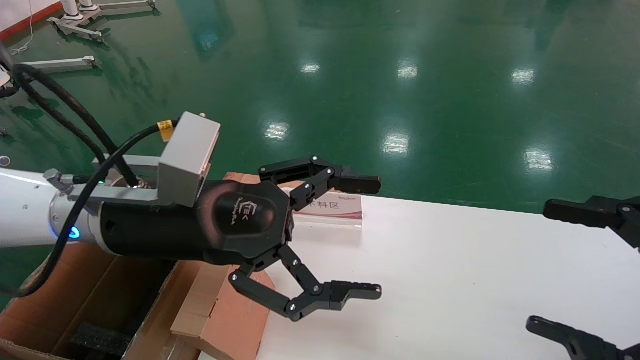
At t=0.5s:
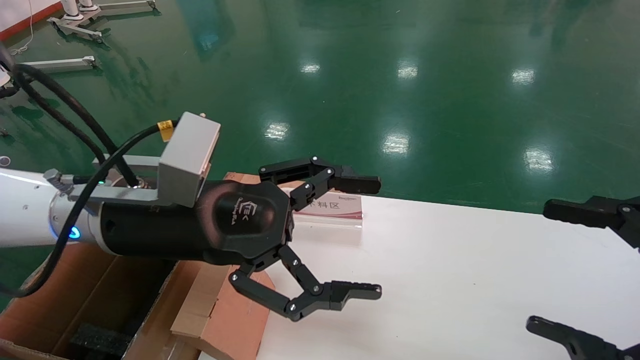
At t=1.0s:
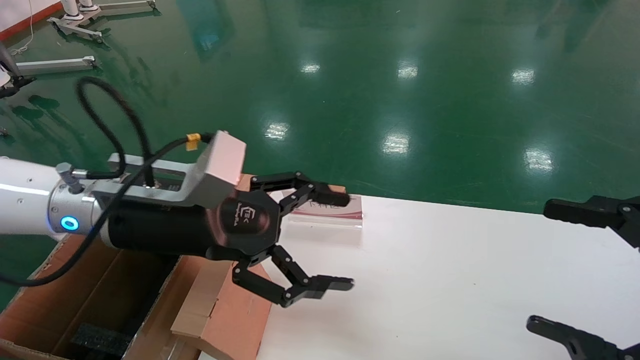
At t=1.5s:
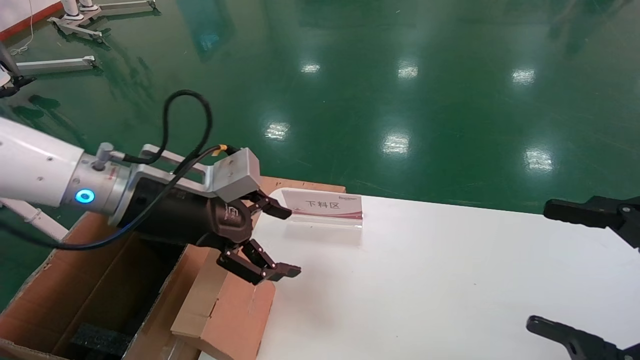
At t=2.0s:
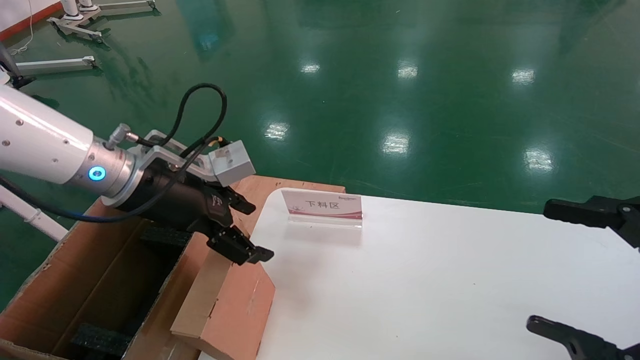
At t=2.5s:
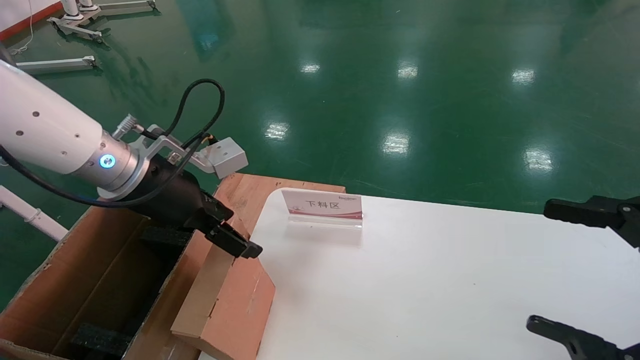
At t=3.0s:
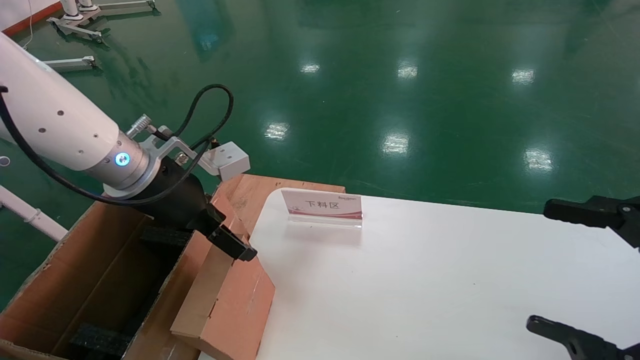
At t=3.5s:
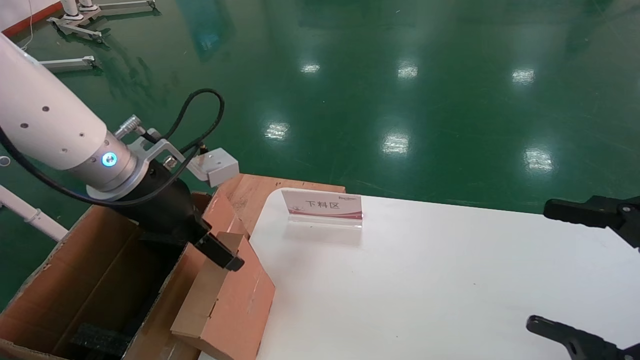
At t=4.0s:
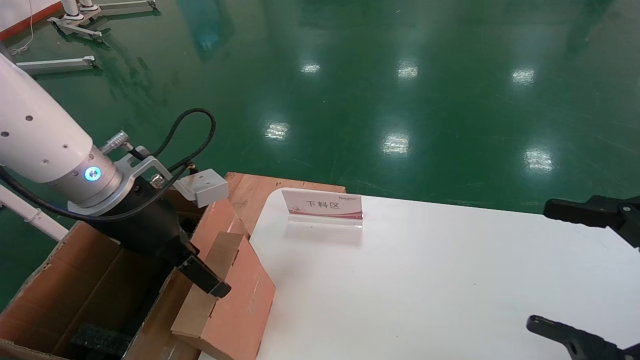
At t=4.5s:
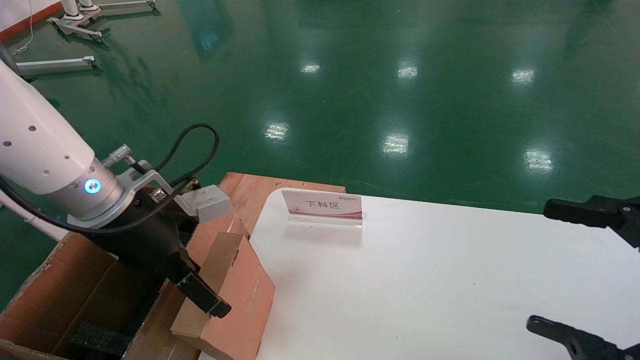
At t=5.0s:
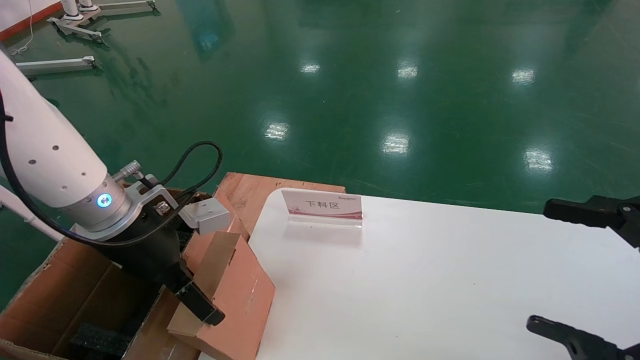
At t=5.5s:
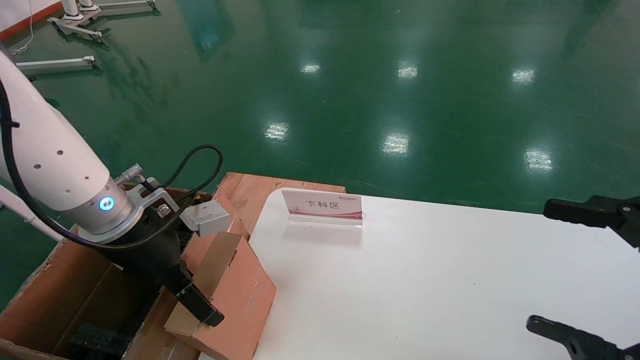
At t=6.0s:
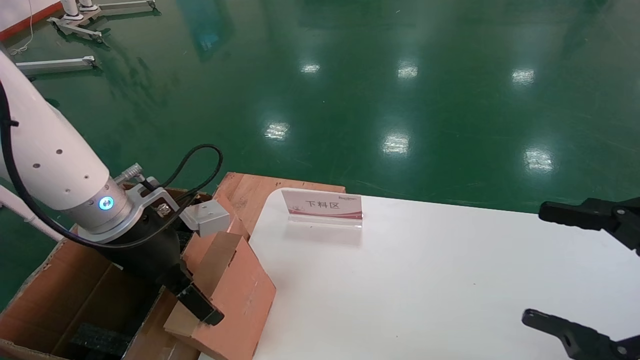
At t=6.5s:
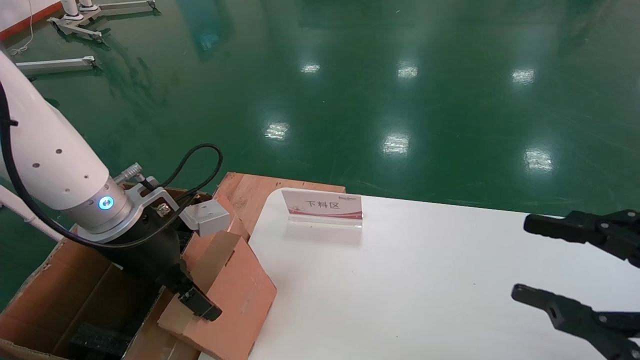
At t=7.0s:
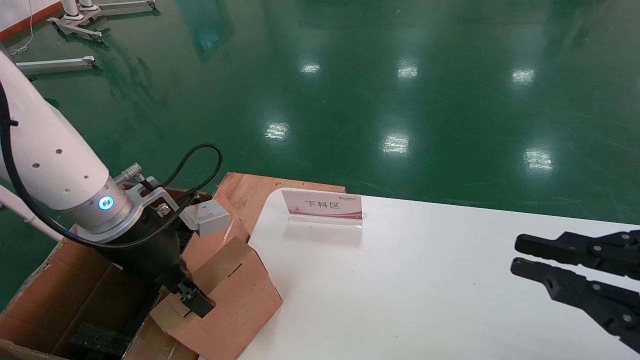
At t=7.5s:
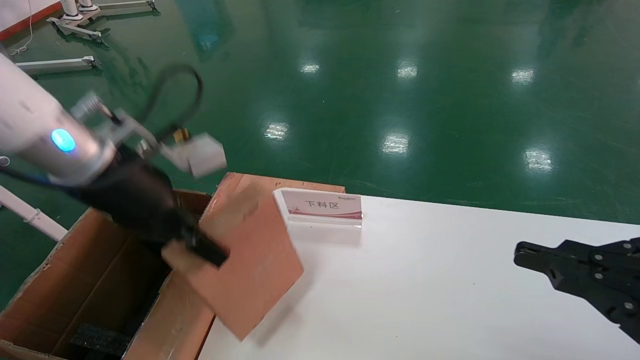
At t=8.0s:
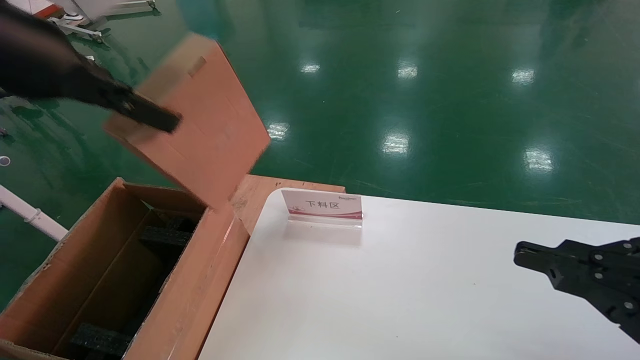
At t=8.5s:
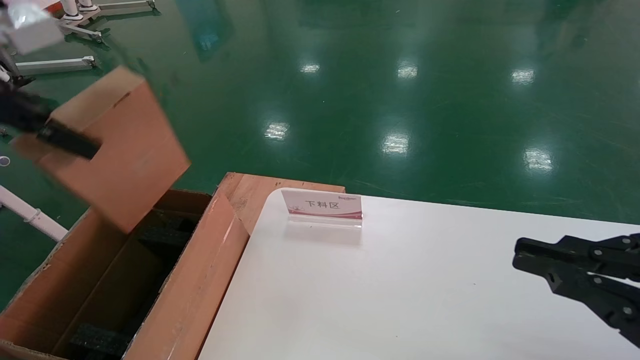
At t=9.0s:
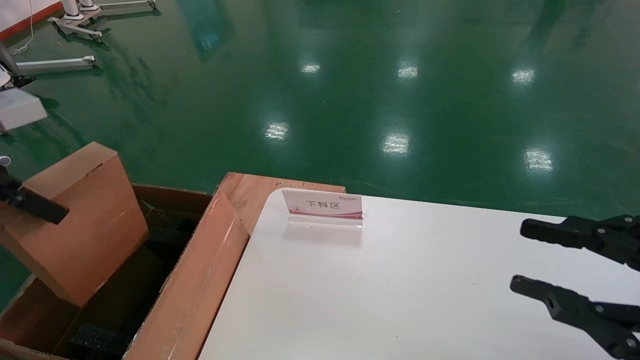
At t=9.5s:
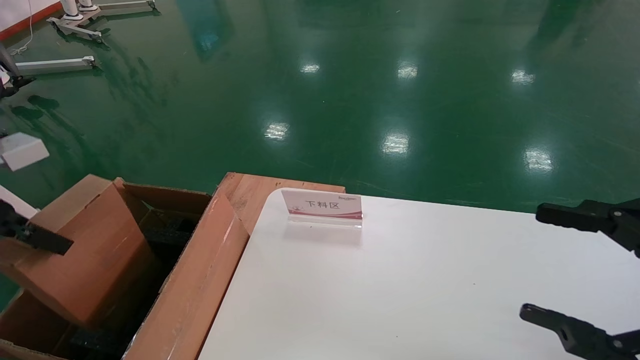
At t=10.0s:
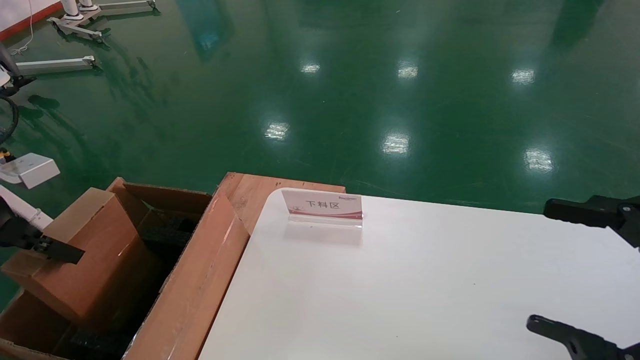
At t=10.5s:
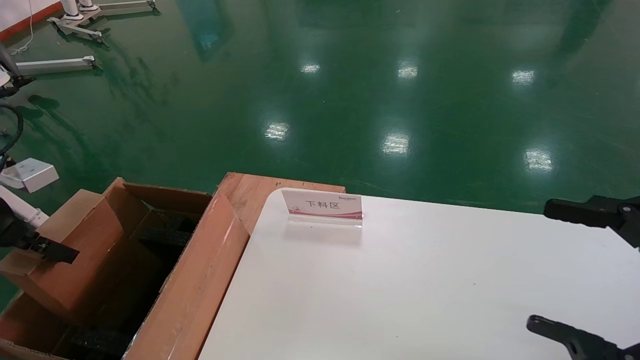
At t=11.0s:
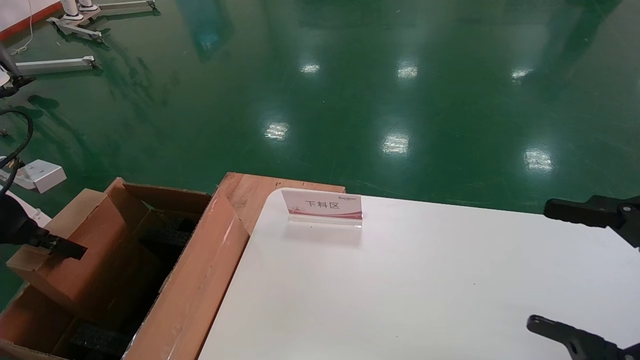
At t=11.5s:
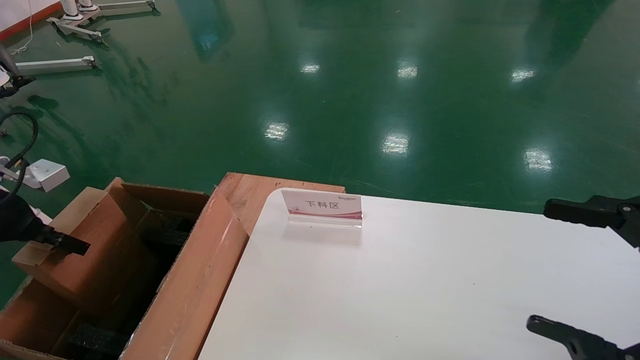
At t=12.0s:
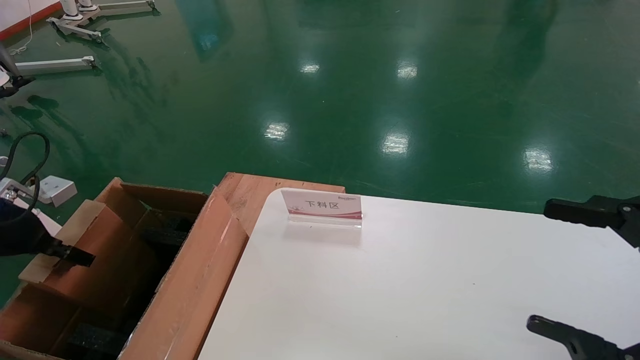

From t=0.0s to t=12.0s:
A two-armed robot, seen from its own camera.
Task of the whole recording: pick up the small cardboard box and load it into the large cardboard box.
Step, from t=1.0s to t=6.5s: Pick up the mouse and power cord box.
From t=0.0s to t=2.0s: The left gripper travels to the left and forward by about 10 cm.
From t=4.0s to t=6.0s: The grippers stay close to where they were, moving slightly.
From t=6.0s to t=8.0s: The left gripper moves upward, some 20 cm, and closes. Meanwhile the right gripper closes up.
From t=8.0s to t=10.0s: The left gripper heads downward and to the left, covering approximately 20 cm. The right gripper opens up.
From t=10.0s to t=12.0s: The left gripper moves downward and forward, some 10 cm.

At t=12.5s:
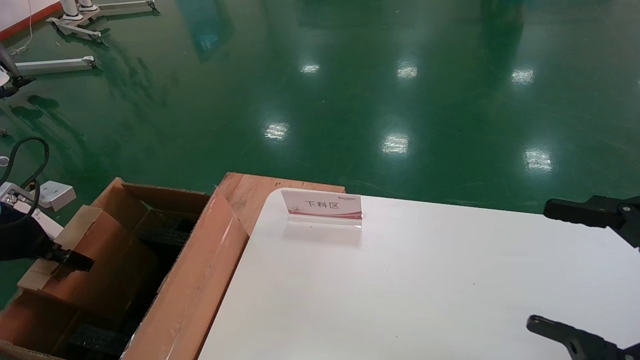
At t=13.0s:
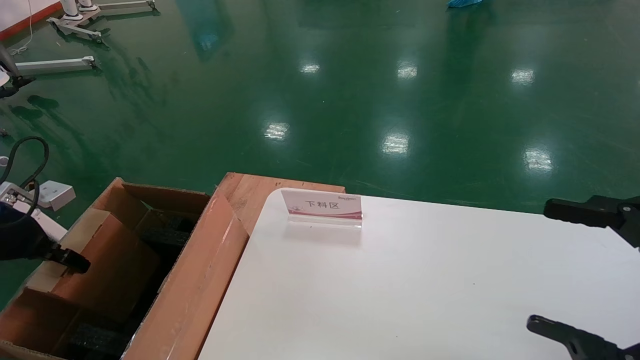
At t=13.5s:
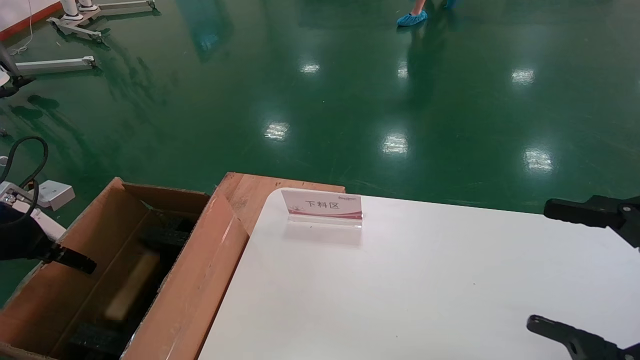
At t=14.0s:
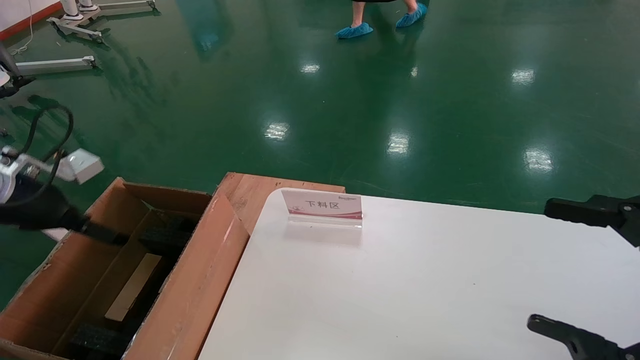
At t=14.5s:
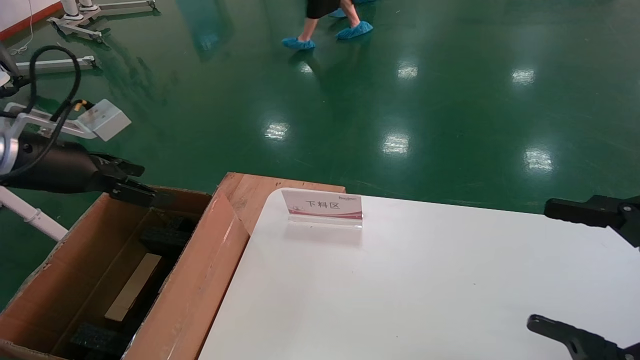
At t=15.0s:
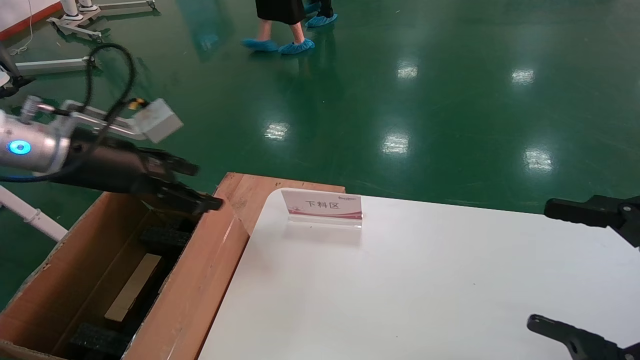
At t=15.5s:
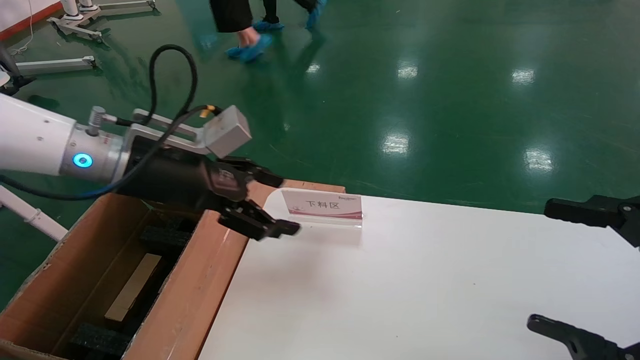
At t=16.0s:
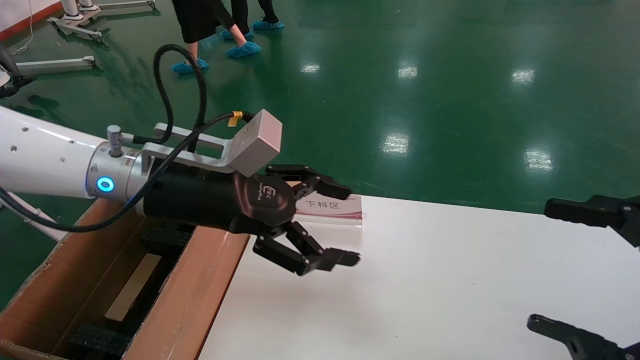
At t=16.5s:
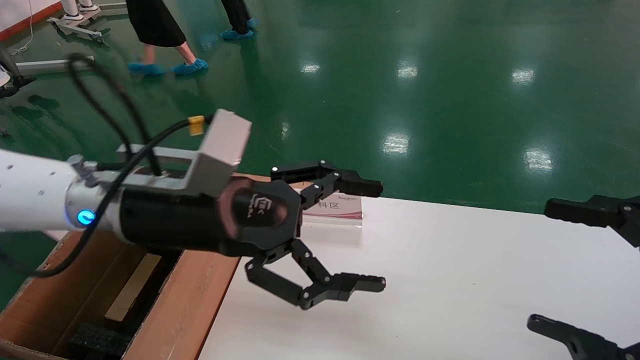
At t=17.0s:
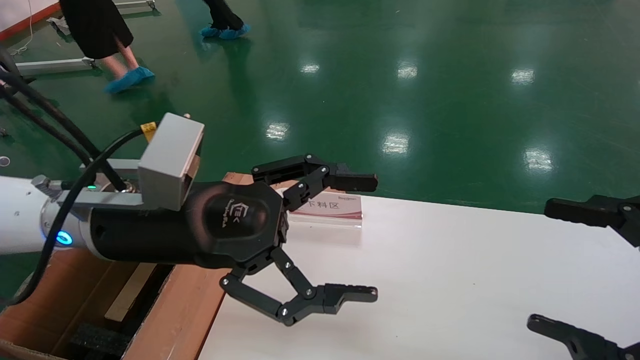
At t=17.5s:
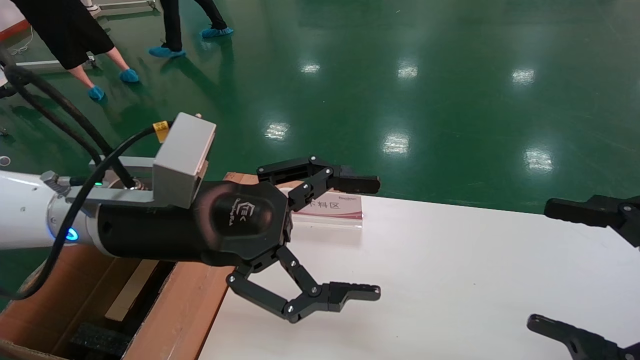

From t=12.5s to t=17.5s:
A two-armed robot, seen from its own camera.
Task of the whole recording: pick up the small cardboard box and load it into the large cardboard box.
From t=12.5s to t=15.0s: The left gripper goes approximately 20 cm to the right and upward, and opens.
From t=15.0s to t=17.5s: The left gripper moves to the right and backward, some 15 cm.

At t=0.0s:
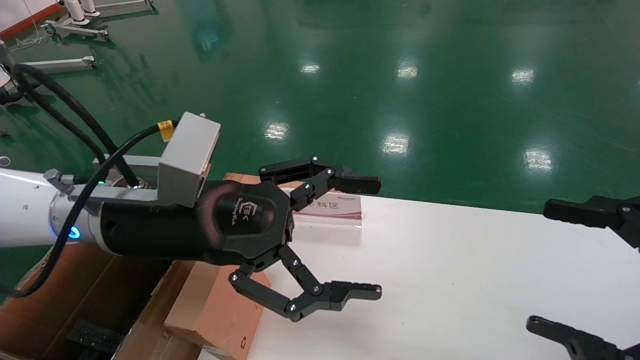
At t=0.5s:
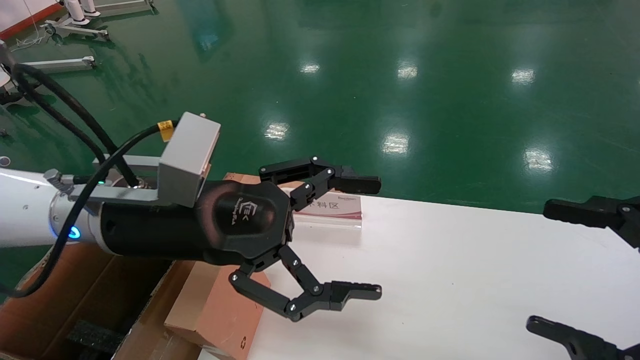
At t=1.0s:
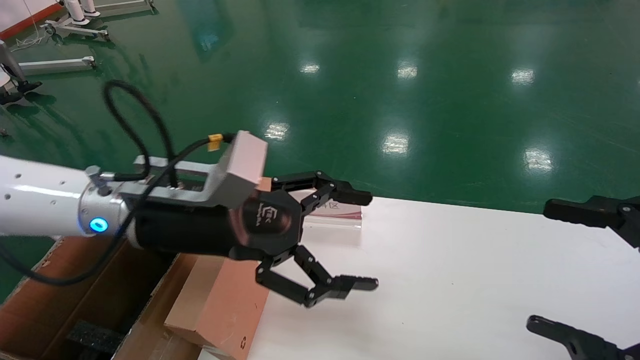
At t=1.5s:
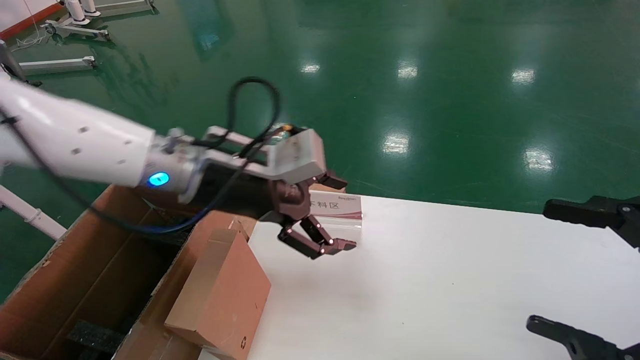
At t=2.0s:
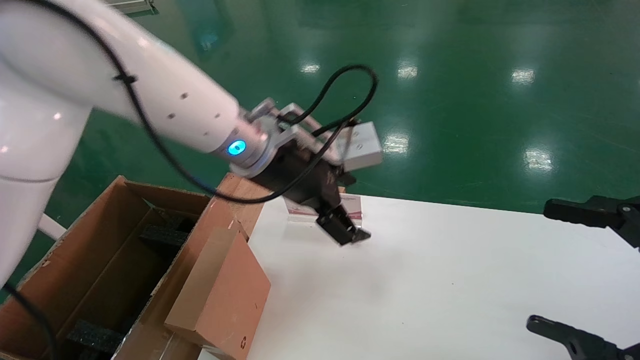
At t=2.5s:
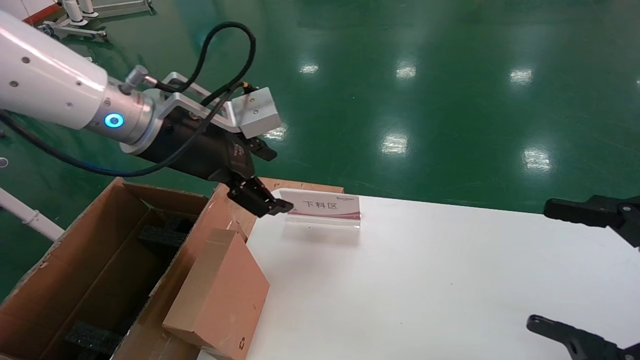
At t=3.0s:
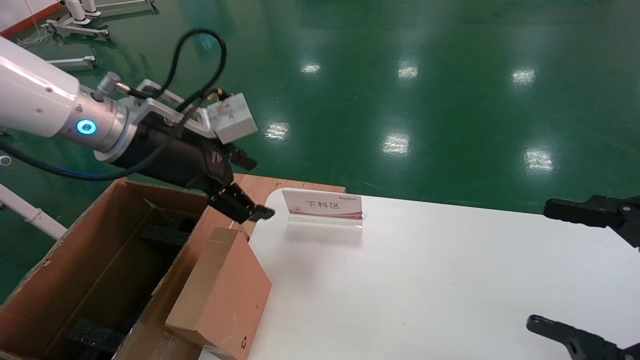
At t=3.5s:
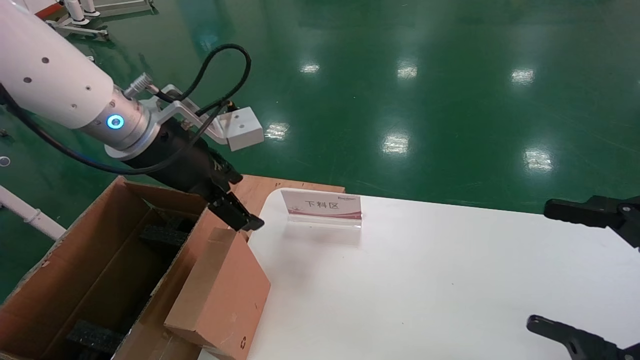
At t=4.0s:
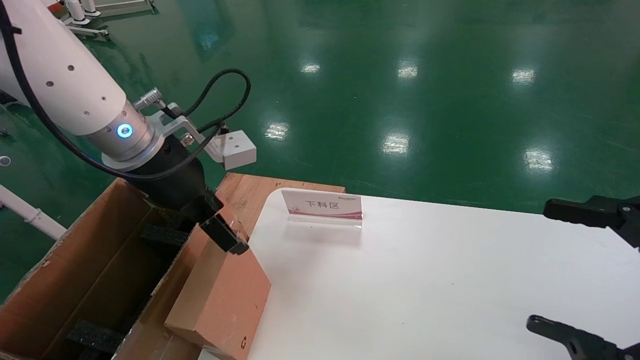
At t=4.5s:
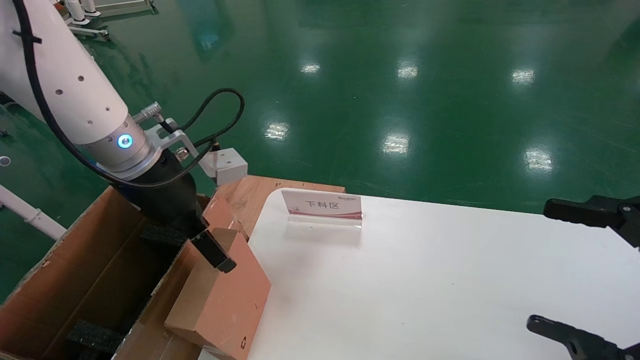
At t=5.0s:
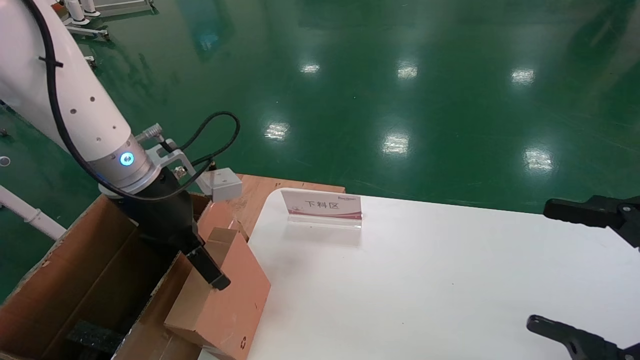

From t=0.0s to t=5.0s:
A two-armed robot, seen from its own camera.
Task of the whole recording: pick up the small cardboard box and load it into the large cardboard box.
From t=0.0s to t=2.5s: The left gripper heads forward and upward, covering about 10 cm.
From t=2.5s to t=5.0s: The left gripper heads downward, covering approximately 5 cm.
